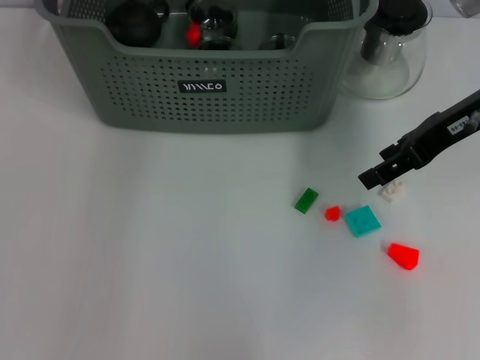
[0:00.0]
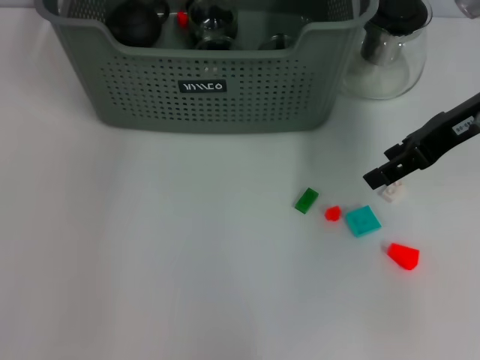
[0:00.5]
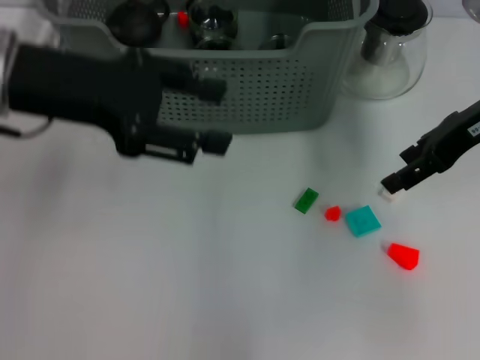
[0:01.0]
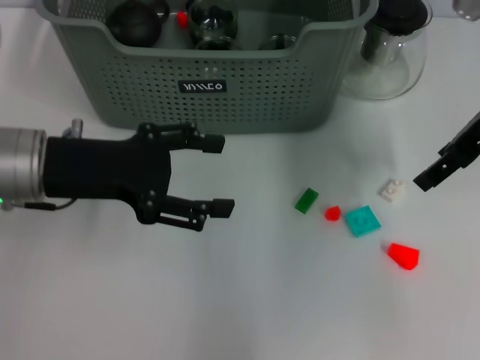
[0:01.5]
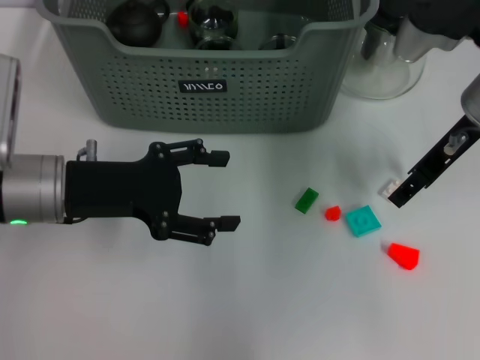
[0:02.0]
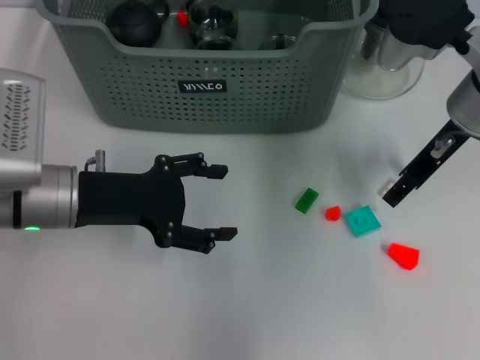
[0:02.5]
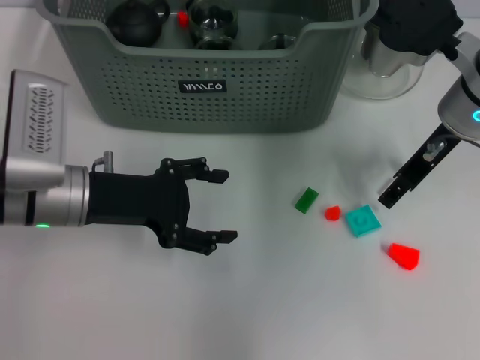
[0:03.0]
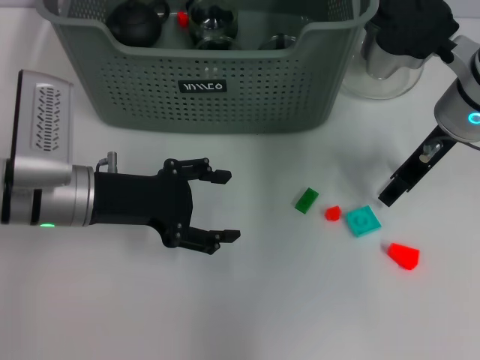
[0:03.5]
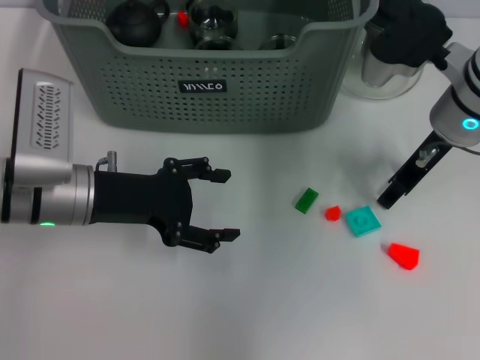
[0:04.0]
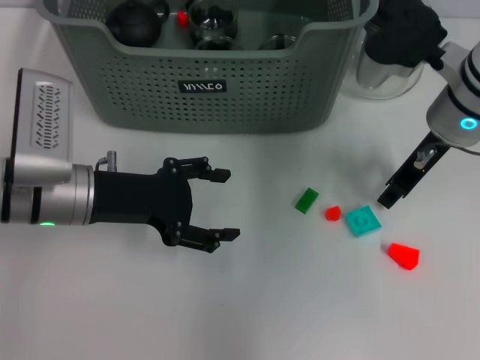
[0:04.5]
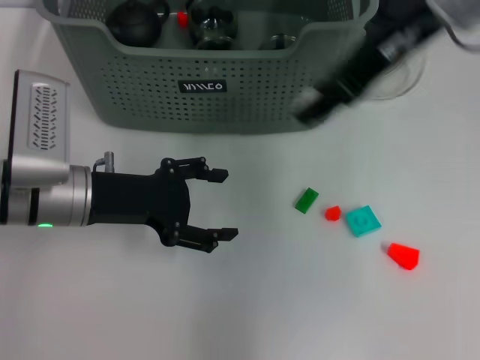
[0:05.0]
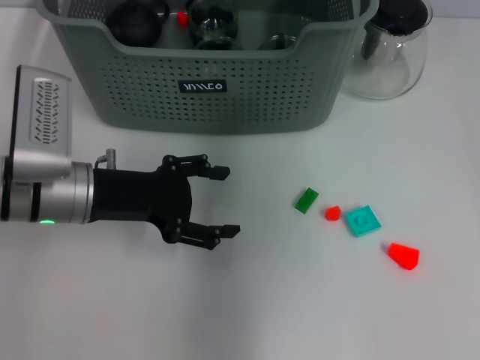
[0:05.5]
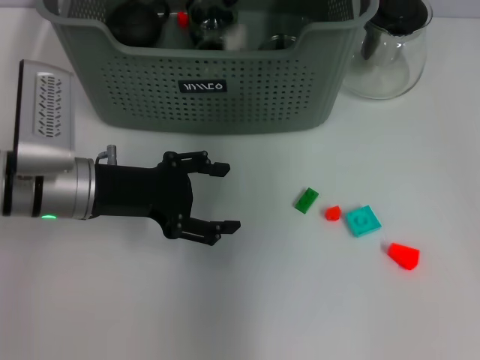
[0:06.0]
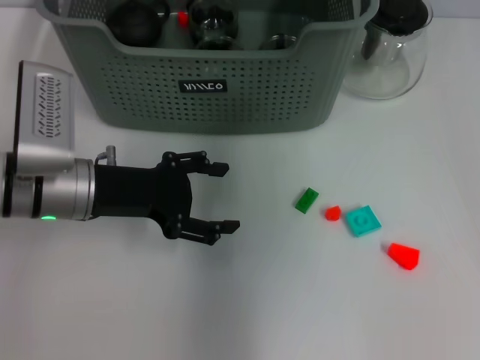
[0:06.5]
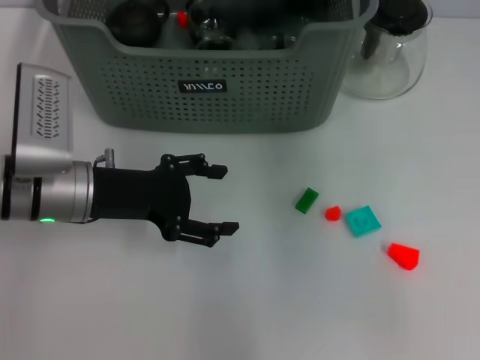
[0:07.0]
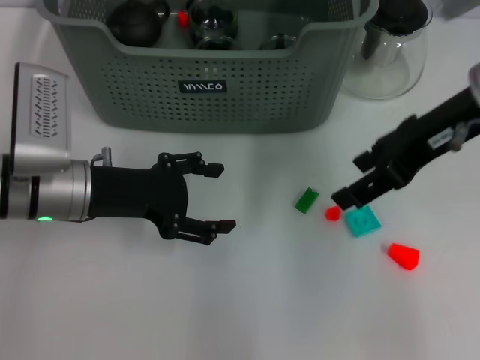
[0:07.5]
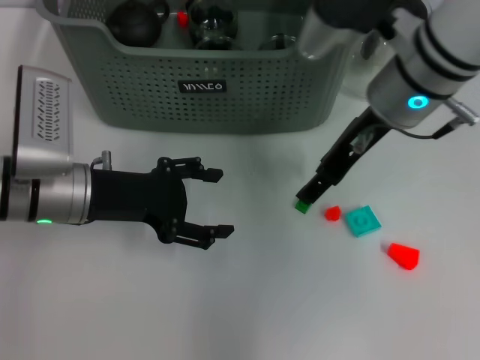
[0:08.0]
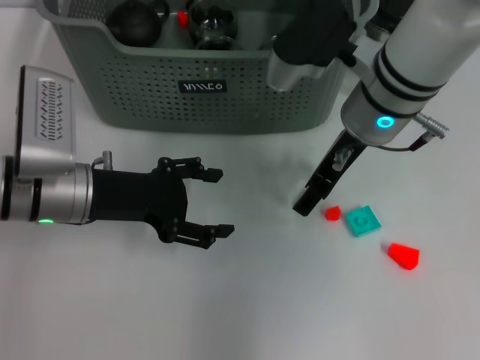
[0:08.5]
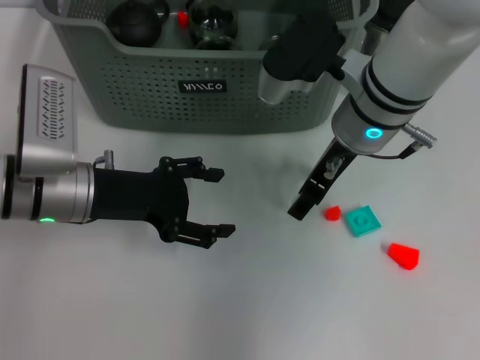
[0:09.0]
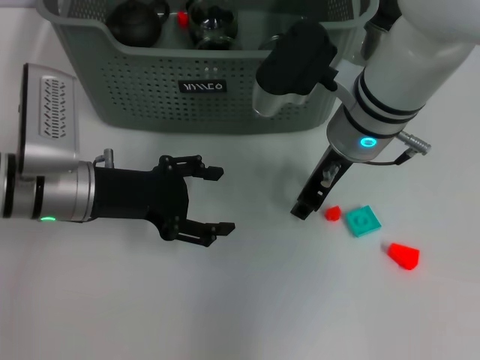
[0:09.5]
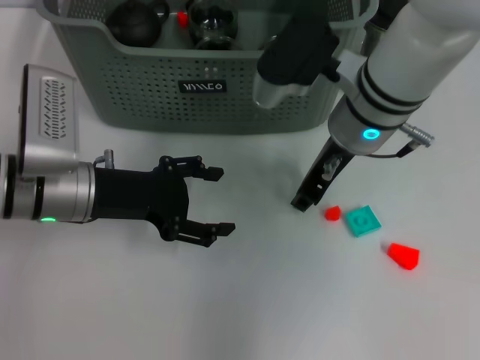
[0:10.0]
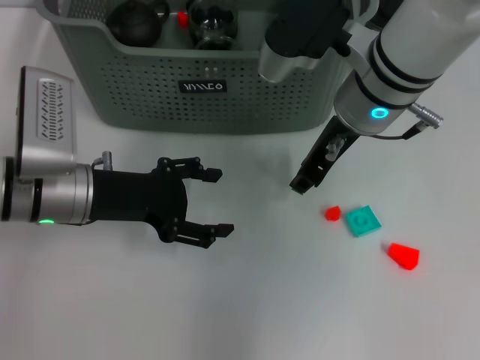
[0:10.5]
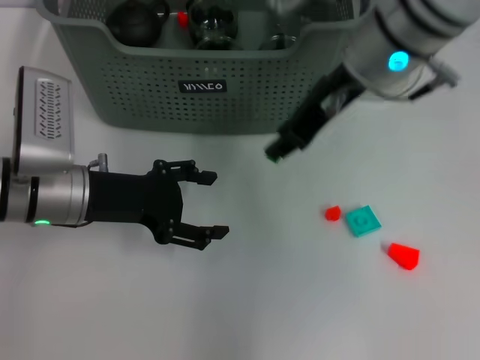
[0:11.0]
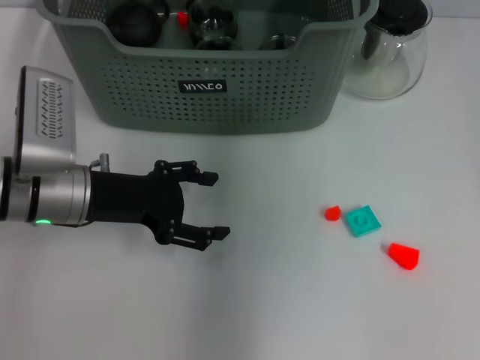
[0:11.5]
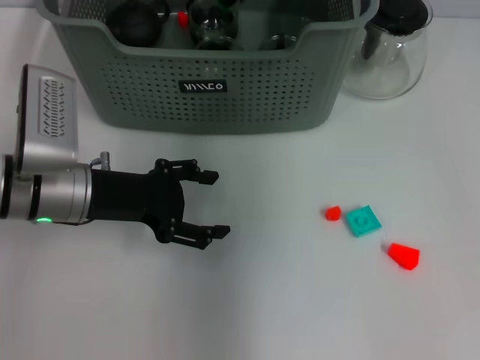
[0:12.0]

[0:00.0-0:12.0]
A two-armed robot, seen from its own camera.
Task of the whole recording: pick up the teacup on the table and place it into the storage bin, pick up the block on the table and place it into the storage bin.
Step, 0:01.0 to 0:04.0: Grasp the white block with right gripper.
Step, 0:04.5 to 0:06.0: Place the white block in the storage box with right gripper.
Step, 0:06.5 to 0:09.5: Grasp the green block with right gripper.
0:00.0 to 0:02.0: The left gripper heads backward and downward, covering some 25 cm, and opens.
0:02.0 to 0:04.0: There are only small adjustments of the grippers.
0:04.0 to 0:06.0: The right gripper travels upward, to the left and forward by roughly 20 cm.
0:06.0 to 0:08.0: The right gripper moves downward, backward and to the right, roughly 15 cm, and opens its fingers.
0:08.0 to 0:10.0: The right gripper closes up.
0:10.0 to 0:12.0: The right gripper moves upward and forward, about 15 cm.

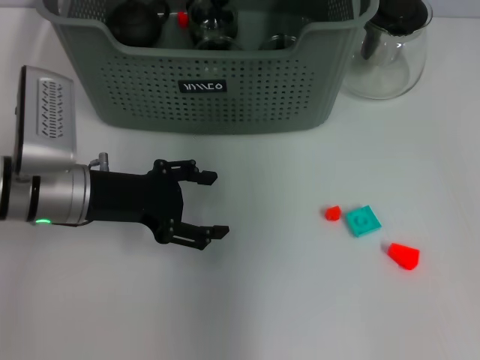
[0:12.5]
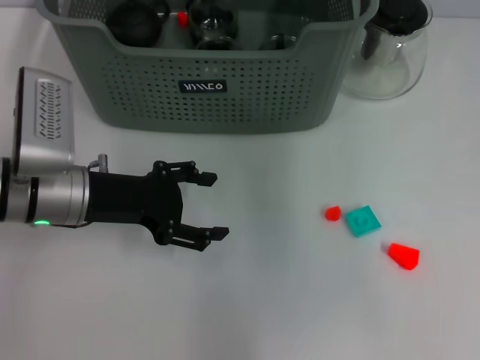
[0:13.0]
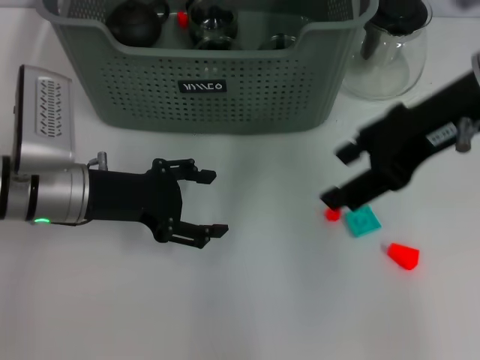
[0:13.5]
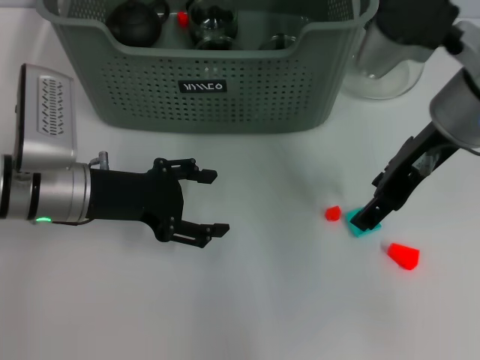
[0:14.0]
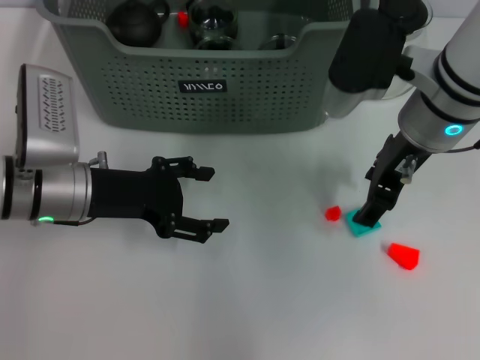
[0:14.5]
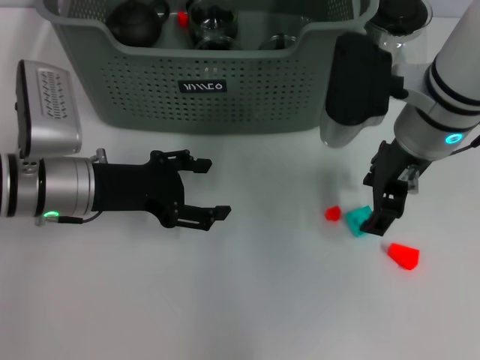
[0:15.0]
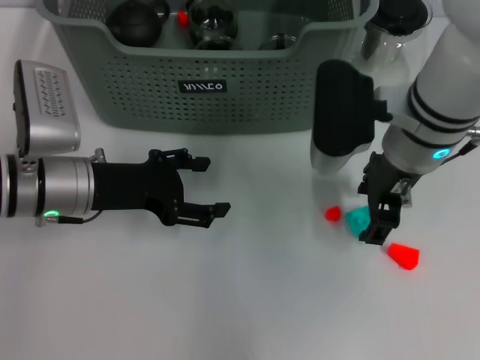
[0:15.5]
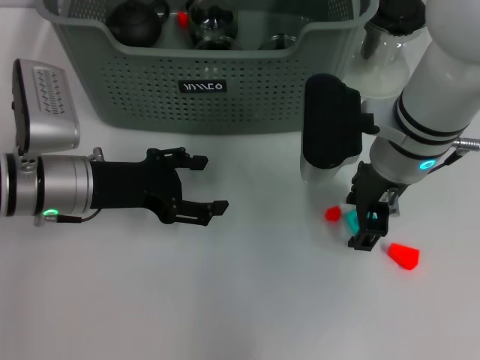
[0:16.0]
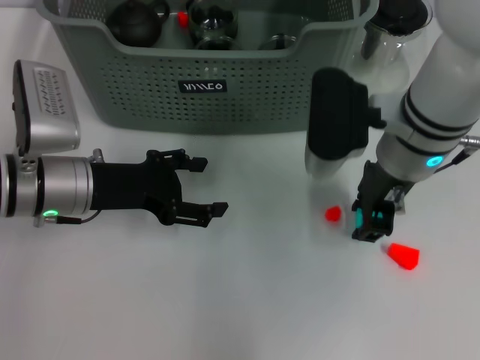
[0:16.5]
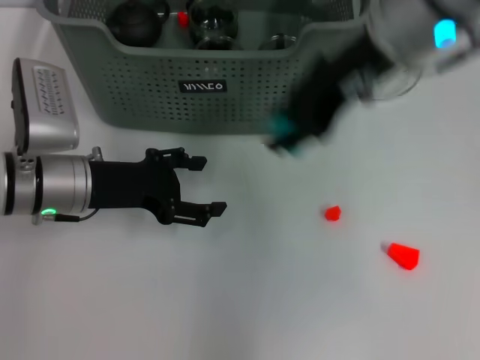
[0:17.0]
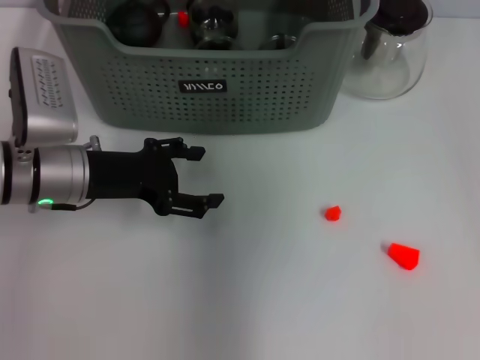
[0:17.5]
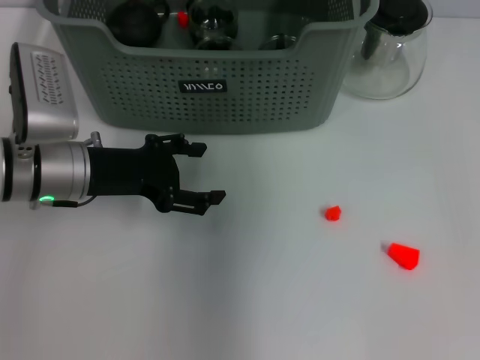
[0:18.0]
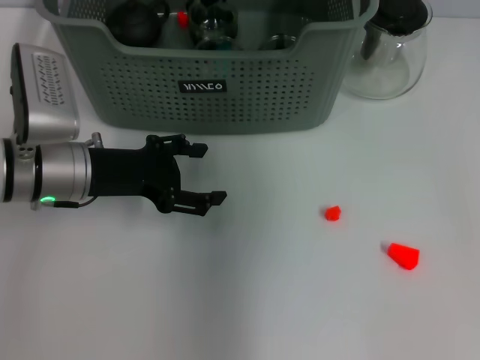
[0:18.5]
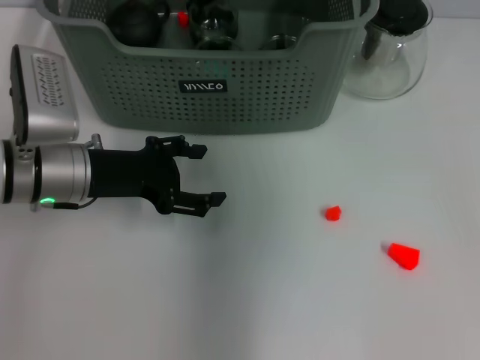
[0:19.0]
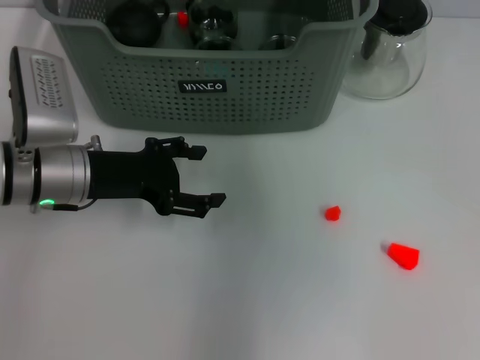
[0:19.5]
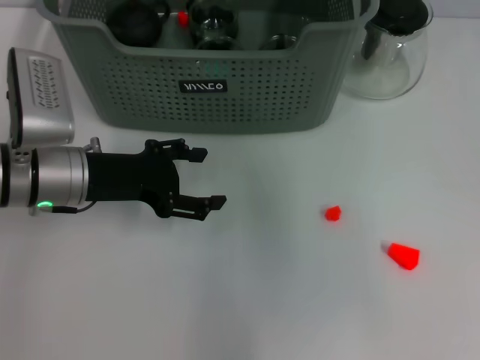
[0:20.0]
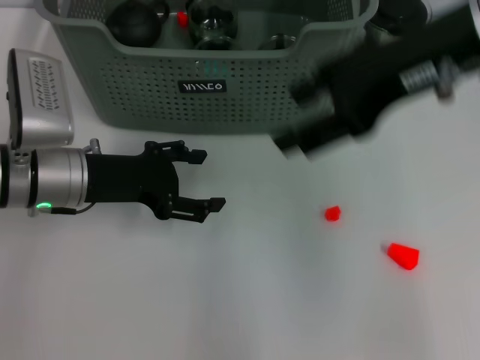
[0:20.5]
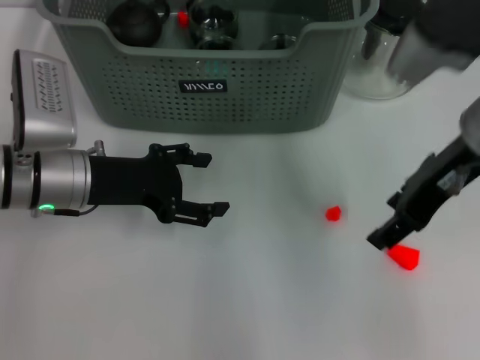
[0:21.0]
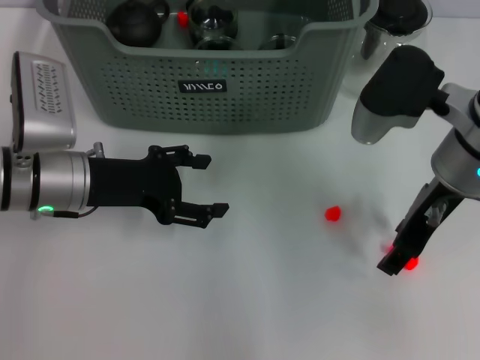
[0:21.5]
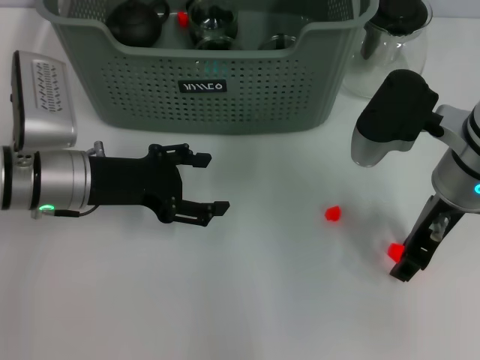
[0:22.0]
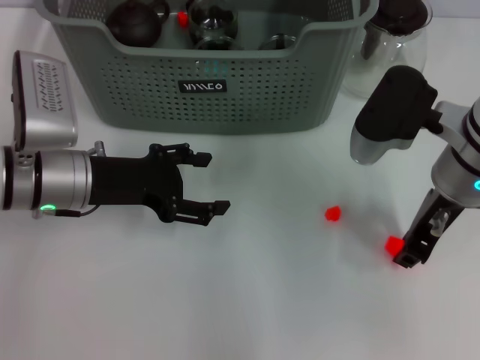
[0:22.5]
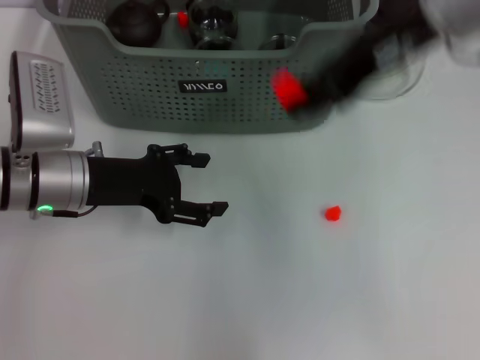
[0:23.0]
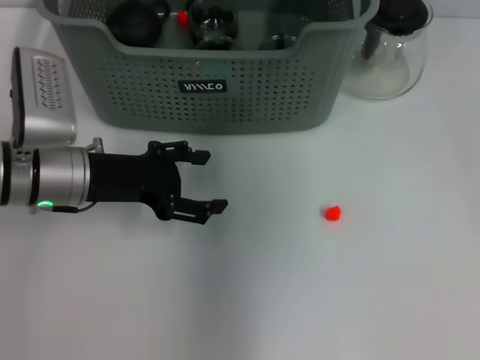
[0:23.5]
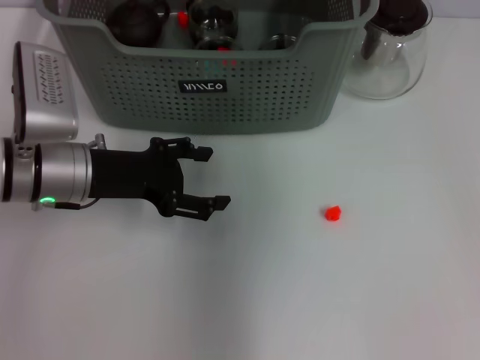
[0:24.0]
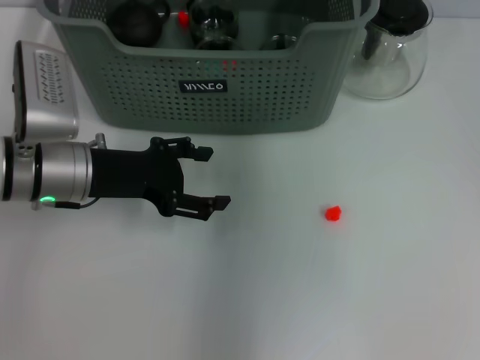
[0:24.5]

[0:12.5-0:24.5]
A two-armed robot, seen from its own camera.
Task of the whole recording: pick up the teacup on the table and place it into the storage bin, pick up the block on the table and place it into the storage bin.
Step, 0:13.0 to 0:16.5: Grasp the light blue block with right gripper.
Step, 0:17.0 to 0:19.5: Place the light blue block in the storage box with right gripper.
Step, 0:20.0 to 0:22.5: Grasp the orange block with right gripper.
0:12.5 to 0:14.5: The right gripper moves backward, downward and to the right, approximately 15 cm.
0:14.5 to 0:16.5: The right gripper closes its fingers.
0:16.5 to 0:18.5: The right gripper shifts about 20 cm forward, upward and to the left.
0:18.5 to 0:20.5: The right gripper travels backward and to the right by approximately 20 cm.
0:20.5 to 0:22.5: The right gripper is displaced downward by approximately 15 cm, and closes up.
0:22.5 to 0:24.5: The right gripper travels upward, forward and to the left by roughly 25 cm, and opens its fingers.

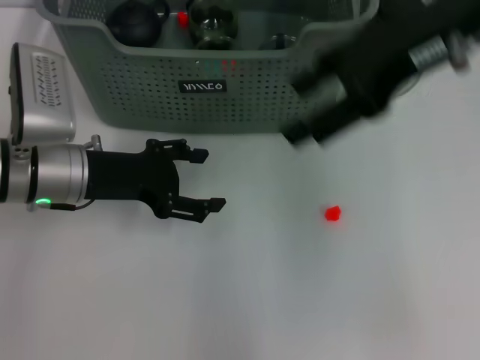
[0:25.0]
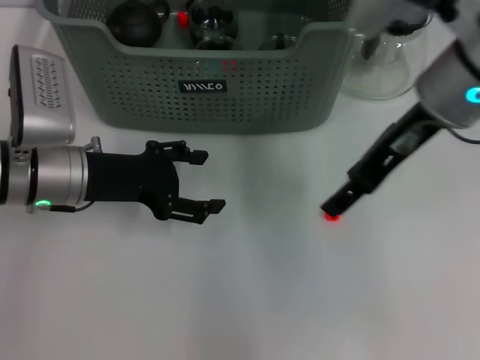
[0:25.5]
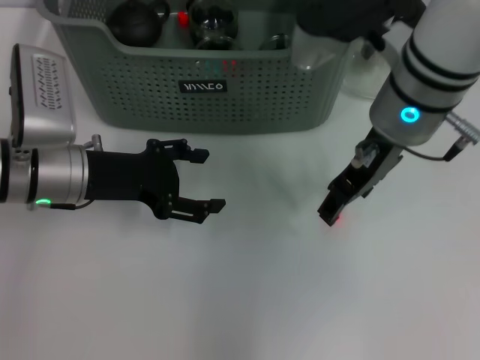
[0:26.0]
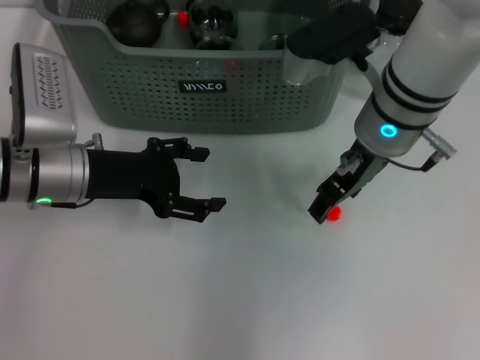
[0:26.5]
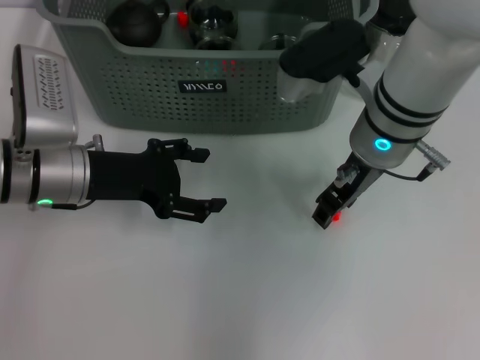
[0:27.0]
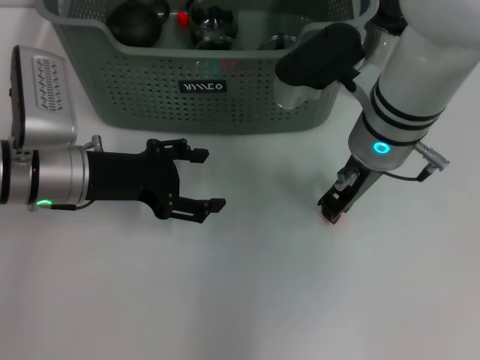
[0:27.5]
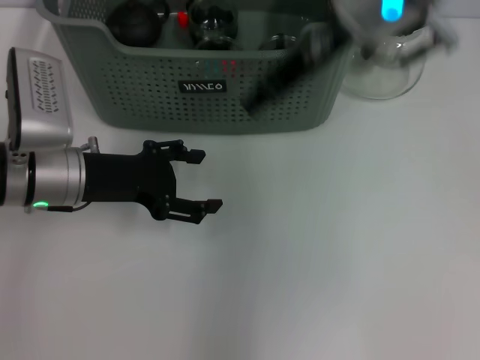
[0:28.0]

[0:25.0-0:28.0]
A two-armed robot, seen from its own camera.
Task of the whole recording: pick up the teacup on the table and place it into the storage bin, pick up the block on the table and place it into the storage bin.
Step, 0:25.0 to 0:27.5: Grasp the orange block with right gripper.
0:25.0 to 0:26.5: The right gripper goes some 15 cm downward and to the left.
0:26.5 to 0:28.0: The right gripper travels upward by roughly 10 cm, and closes up.
